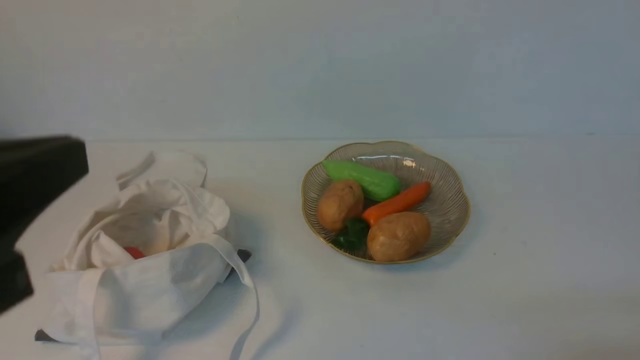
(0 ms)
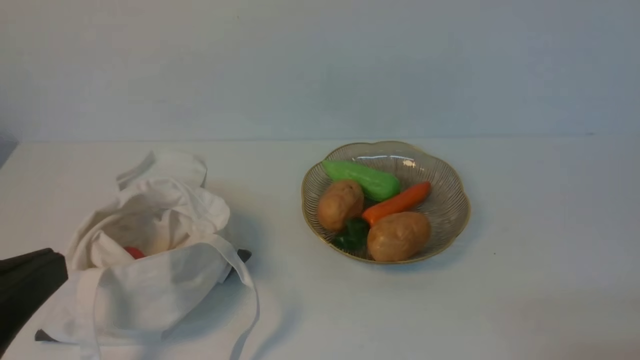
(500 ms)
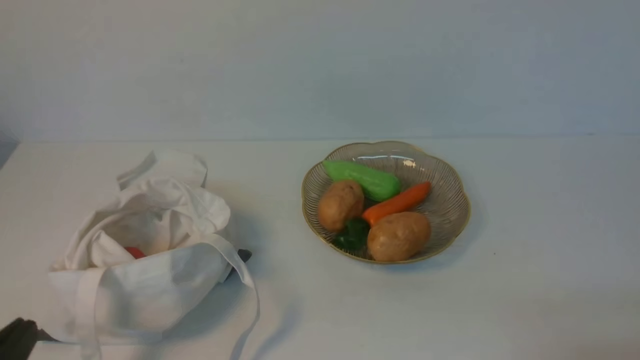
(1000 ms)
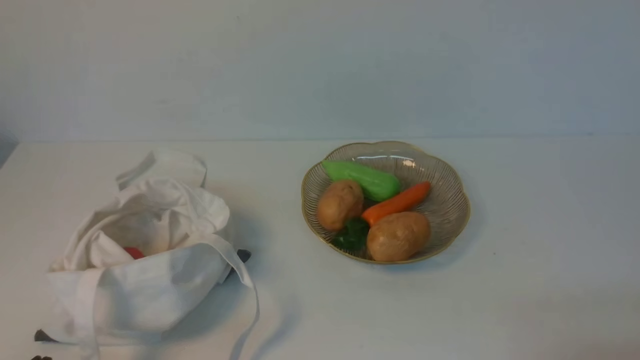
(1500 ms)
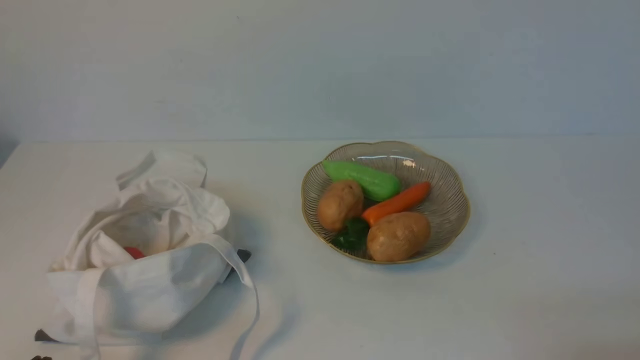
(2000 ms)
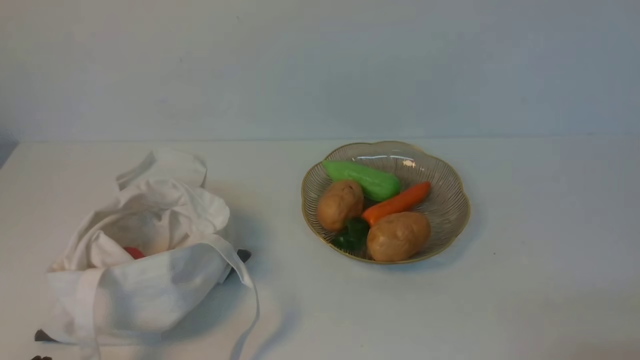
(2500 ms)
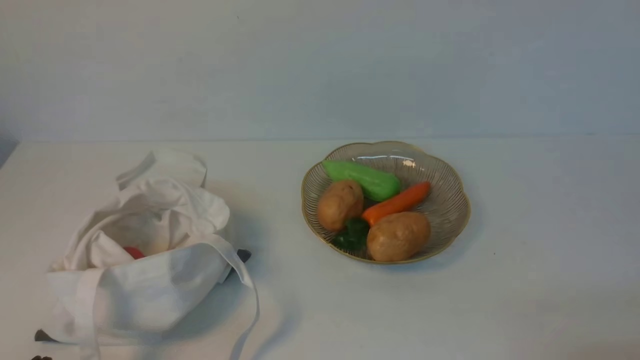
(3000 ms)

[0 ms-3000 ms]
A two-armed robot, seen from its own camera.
Task of the whole recording: take vegetables from cloth bag on white table place on plate.
0 ms to 1500 ms: The left gripper is displaced downward by about 20 cm.
1500 ms to 3000 ms: Both grippers stay put.
